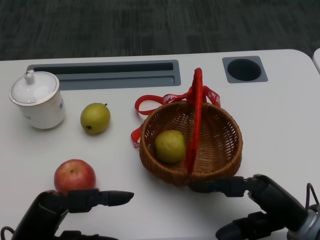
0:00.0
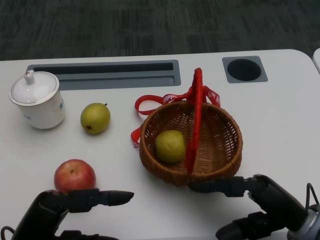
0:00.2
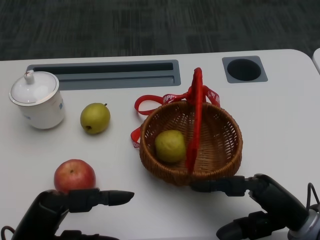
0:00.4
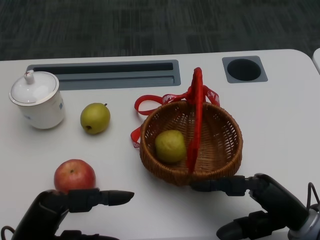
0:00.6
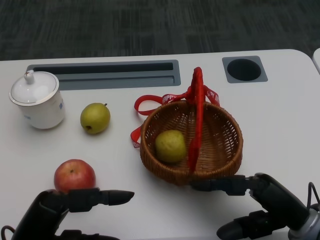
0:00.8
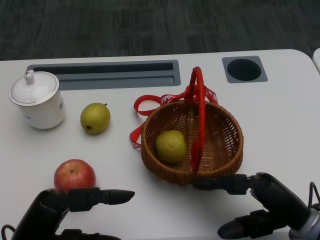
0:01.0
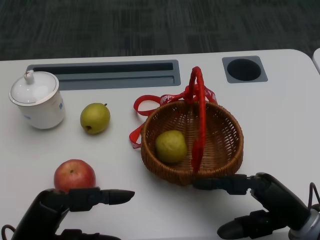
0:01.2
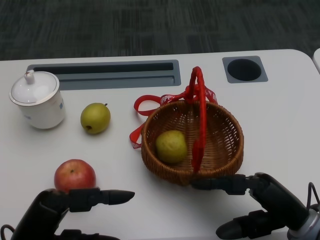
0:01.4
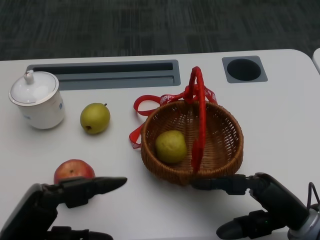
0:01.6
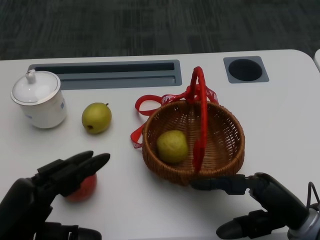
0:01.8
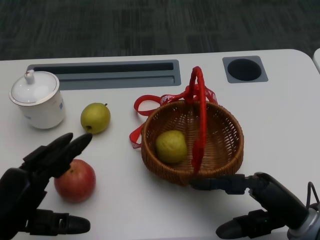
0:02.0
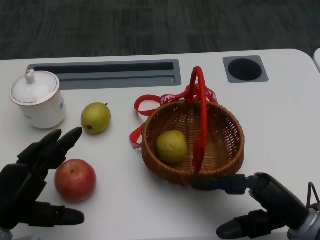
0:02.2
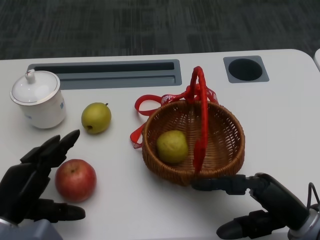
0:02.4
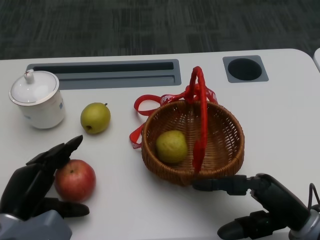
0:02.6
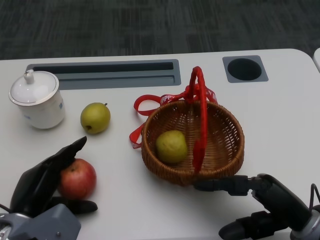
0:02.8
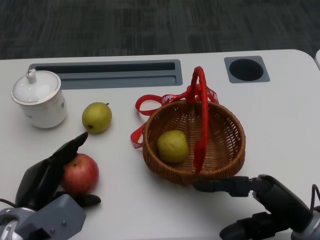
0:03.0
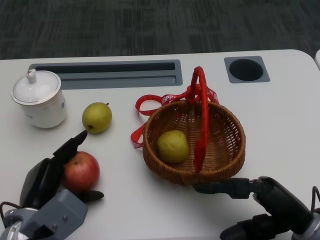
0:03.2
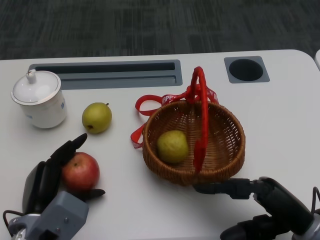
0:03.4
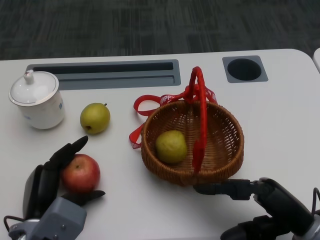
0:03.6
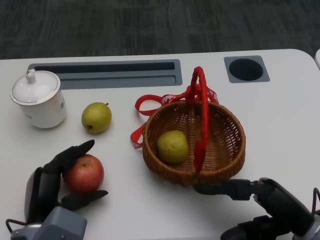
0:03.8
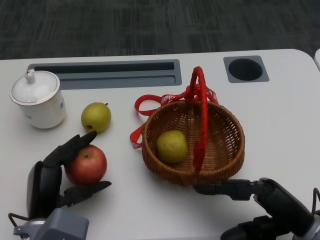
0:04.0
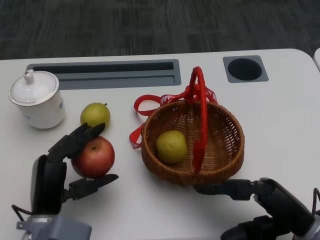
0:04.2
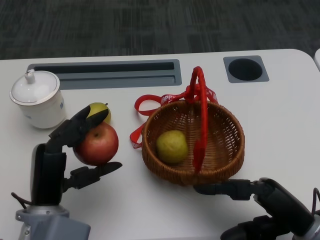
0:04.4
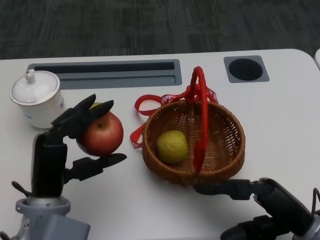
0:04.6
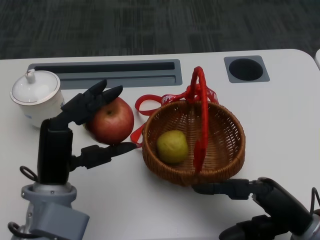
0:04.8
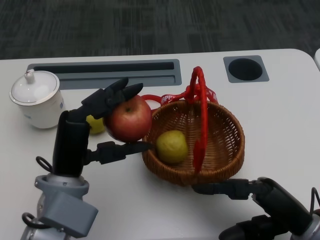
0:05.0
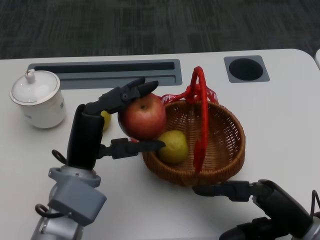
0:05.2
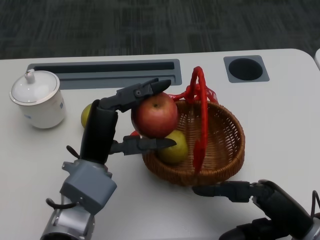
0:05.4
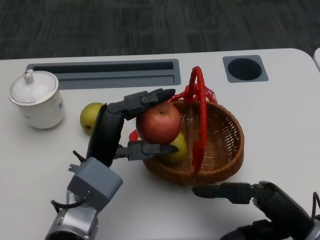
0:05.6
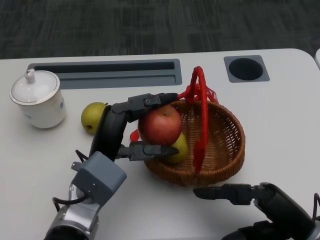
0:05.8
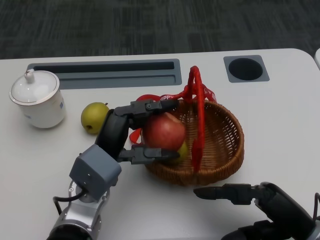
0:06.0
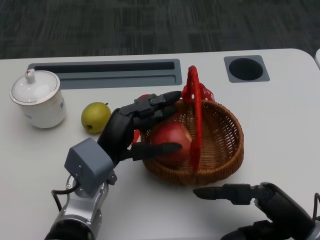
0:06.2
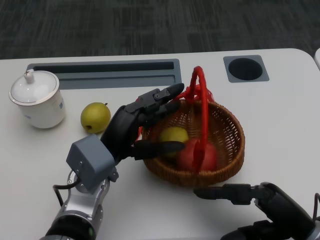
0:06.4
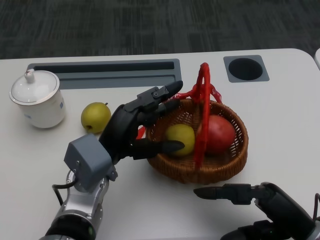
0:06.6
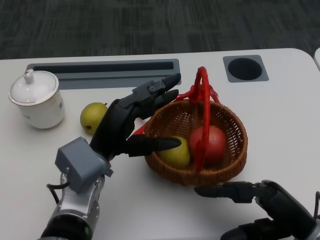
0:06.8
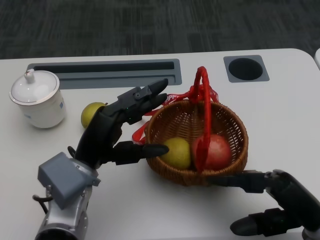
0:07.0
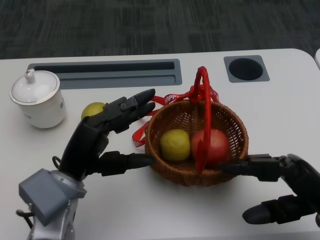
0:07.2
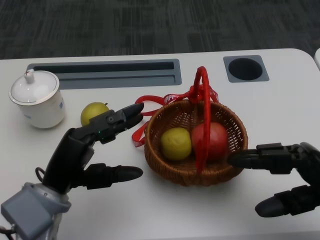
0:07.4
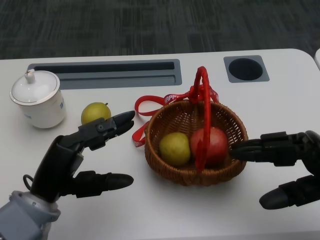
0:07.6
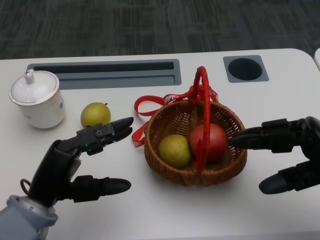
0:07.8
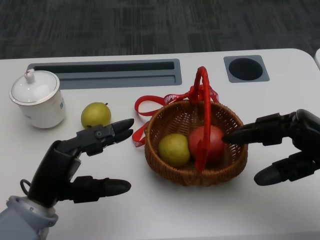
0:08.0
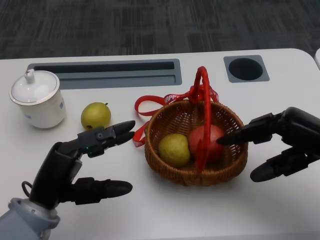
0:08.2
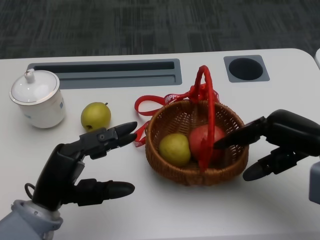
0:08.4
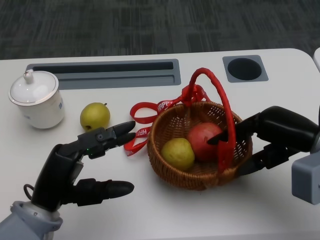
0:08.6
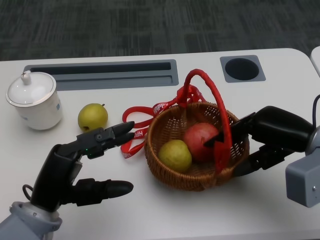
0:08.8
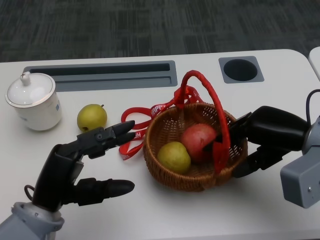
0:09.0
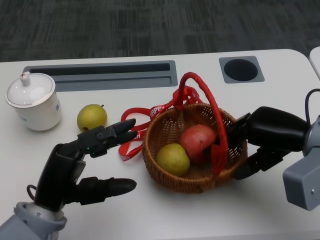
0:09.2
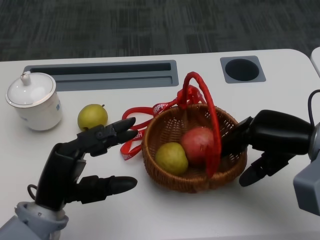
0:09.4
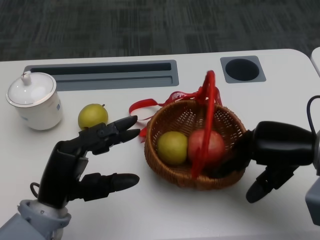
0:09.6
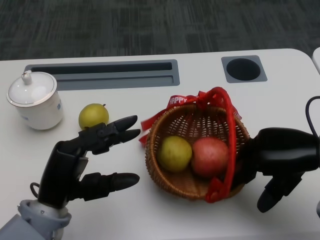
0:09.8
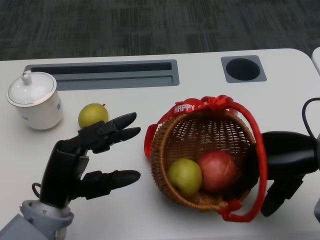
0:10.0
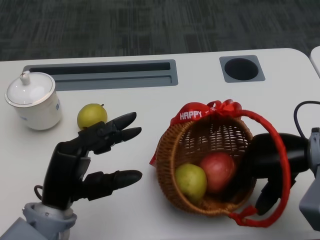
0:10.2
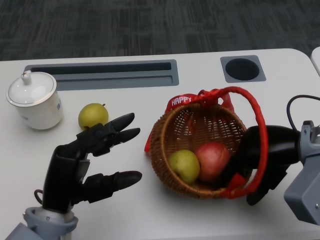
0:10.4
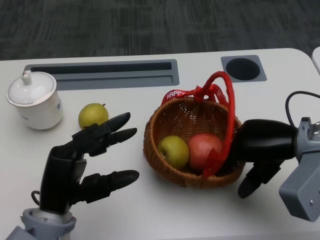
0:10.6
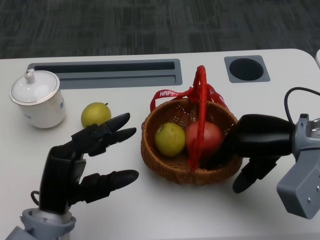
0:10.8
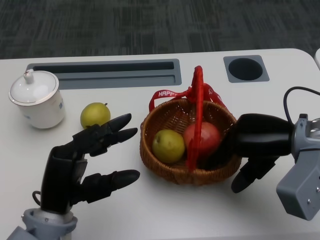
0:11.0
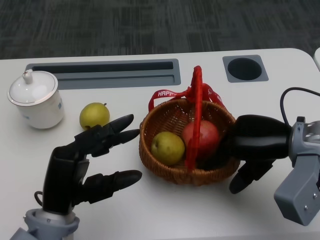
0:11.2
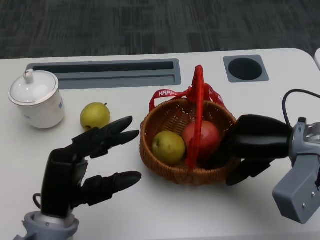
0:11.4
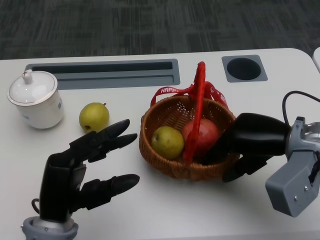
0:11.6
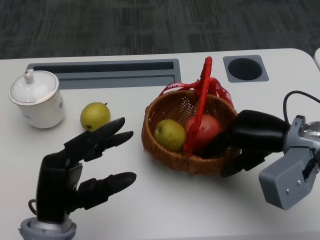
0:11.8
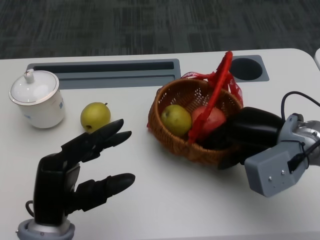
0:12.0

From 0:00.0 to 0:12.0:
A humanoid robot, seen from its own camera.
Step, from 0:00.8 to 0:03.0: Grasp the apple with the left gripper.
Step, from 0:03.2 to 0:05.2: Place the apple into the basket with the left gripper.
Step, from 0:05.4 to 0:08.0: Grasp the basket with the right gripper.
Step, from 0:08.2 to 0:11.0: Move the basket to the front of the table with the right gripper.
From 0:01.6 to 0:03.0: The left hand shifts approximately 10 cm forward and downward.
From 0:03.0 to 0:04.4: The left hand changes place by roughly 5 cm.
From 0:04.4 to 0:06.0: The left hand travels to the right by some 5 cm.
From 0:06.0 to 0:07.6: The right hand travels upward and to the right by about 10 cm. Meanwhile the left hand shifts approximately 10 cm to the left.
From 0:07.6 to 0:09.0: The right hand shifts approximately 10 cm forward.

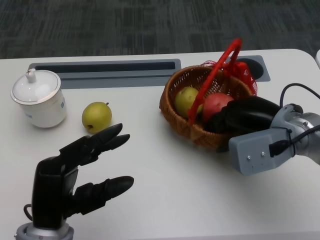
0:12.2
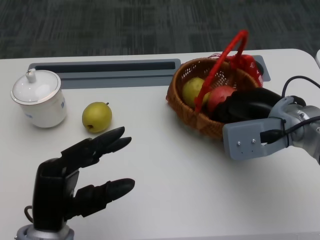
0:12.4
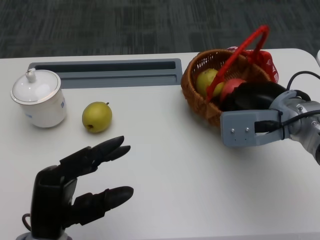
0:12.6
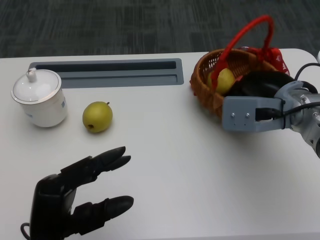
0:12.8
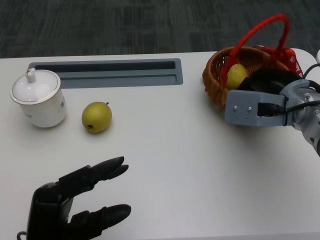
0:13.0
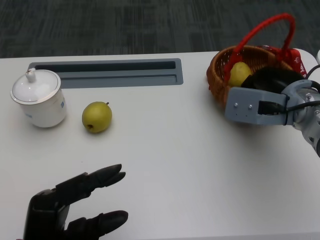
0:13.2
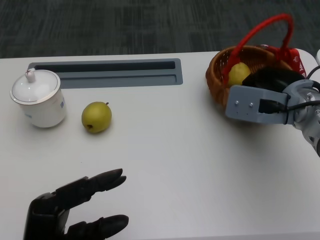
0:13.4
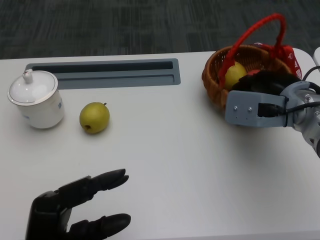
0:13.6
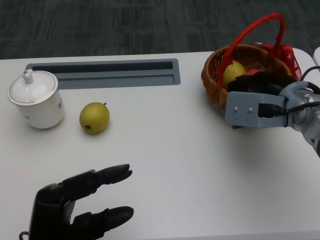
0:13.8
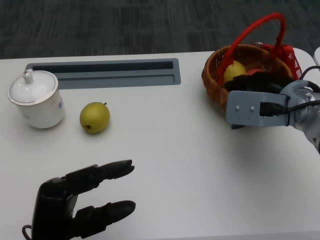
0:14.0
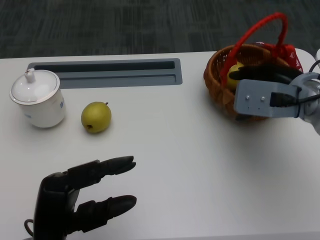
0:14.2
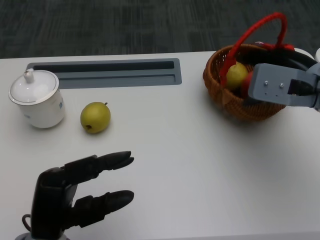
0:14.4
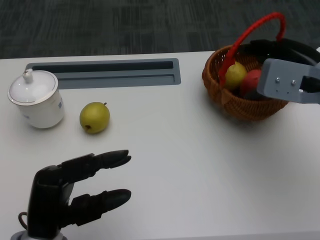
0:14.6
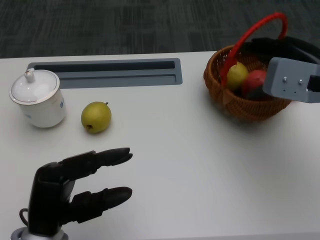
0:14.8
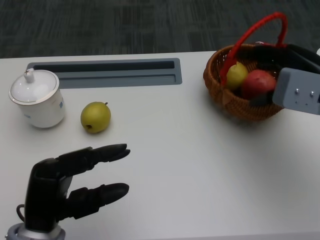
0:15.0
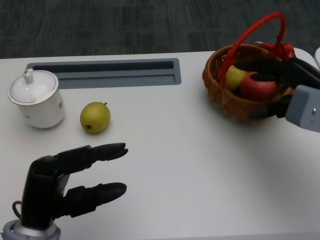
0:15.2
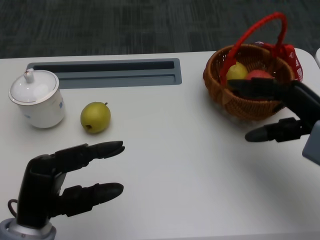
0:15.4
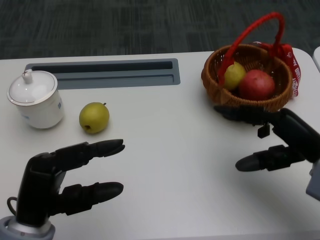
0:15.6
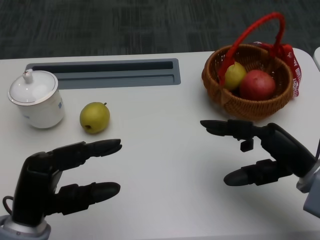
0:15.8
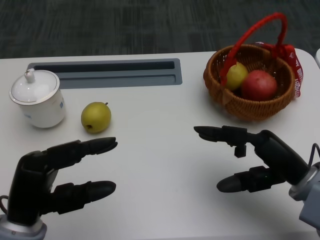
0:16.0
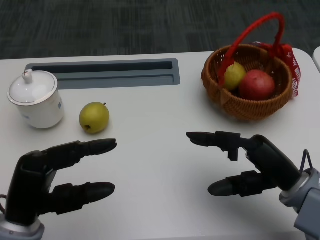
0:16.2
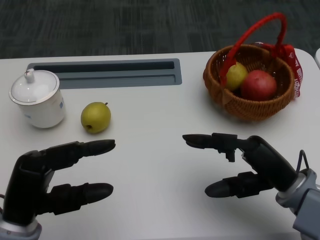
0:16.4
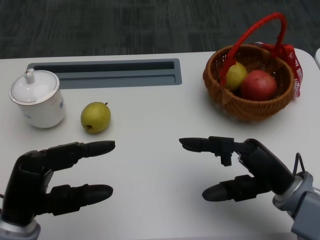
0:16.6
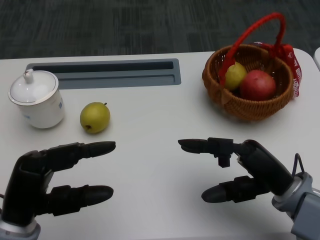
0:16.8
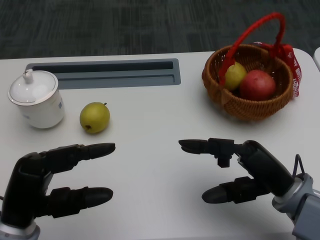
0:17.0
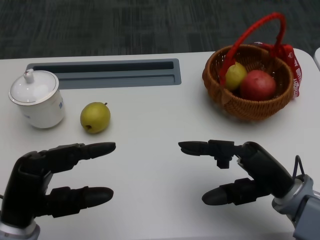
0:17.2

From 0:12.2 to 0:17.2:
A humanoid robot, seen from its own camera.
From 0:13.8 to 0:15.6: The right hand shifts about 10 cm backward and to the right.
From 0:15.6 to 0:17.2: The right hand is displaced to the left by some 5 cm.

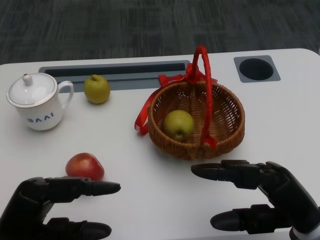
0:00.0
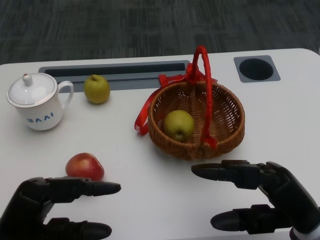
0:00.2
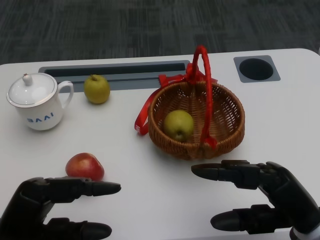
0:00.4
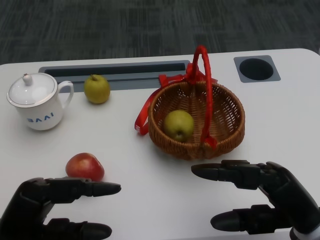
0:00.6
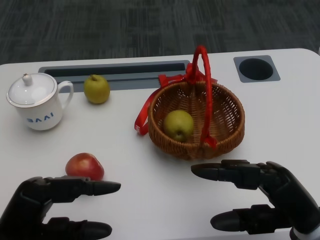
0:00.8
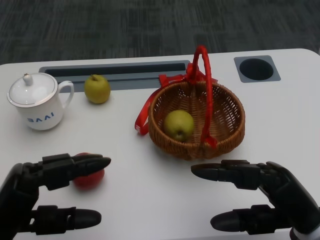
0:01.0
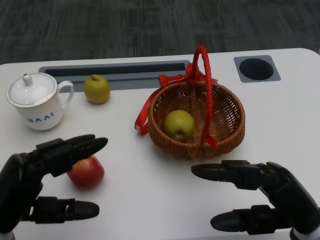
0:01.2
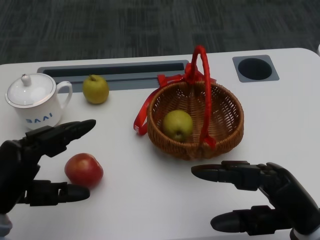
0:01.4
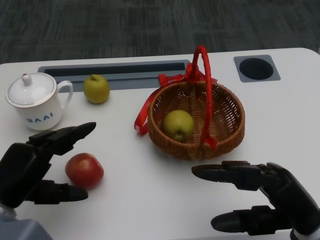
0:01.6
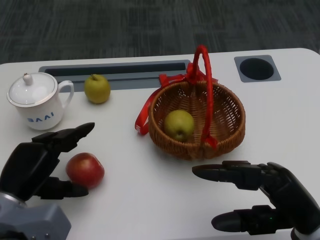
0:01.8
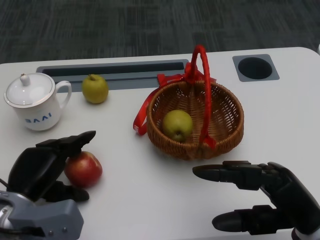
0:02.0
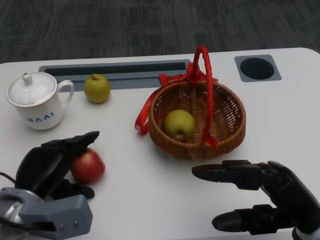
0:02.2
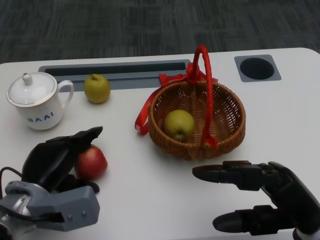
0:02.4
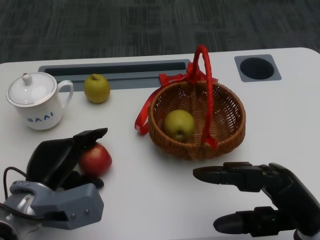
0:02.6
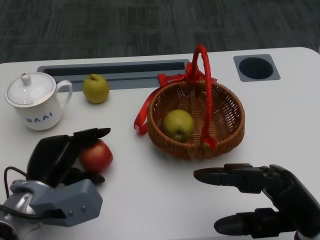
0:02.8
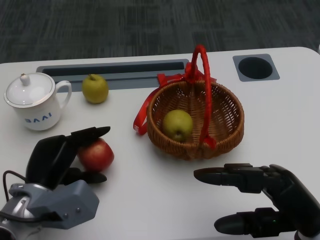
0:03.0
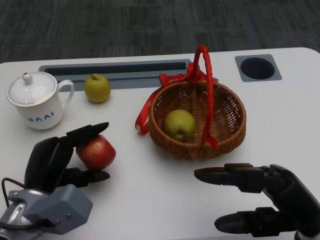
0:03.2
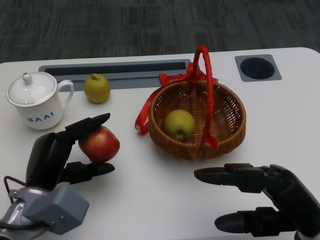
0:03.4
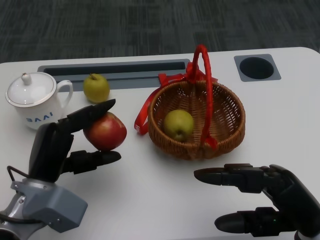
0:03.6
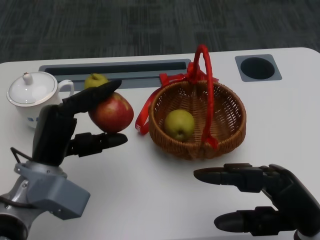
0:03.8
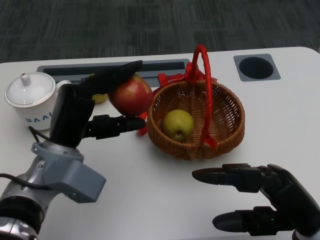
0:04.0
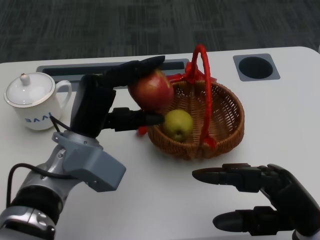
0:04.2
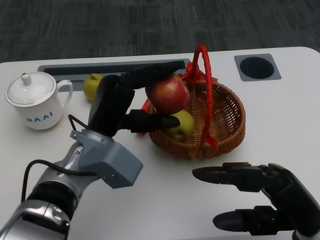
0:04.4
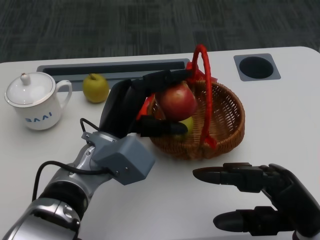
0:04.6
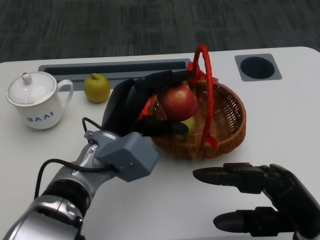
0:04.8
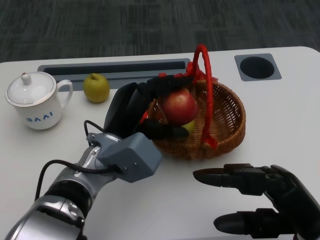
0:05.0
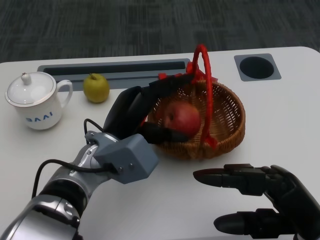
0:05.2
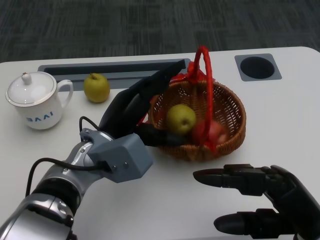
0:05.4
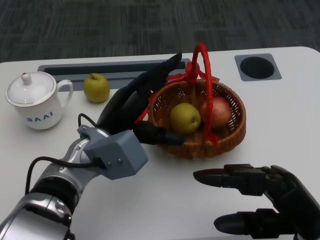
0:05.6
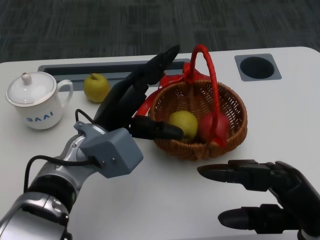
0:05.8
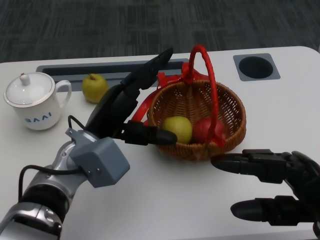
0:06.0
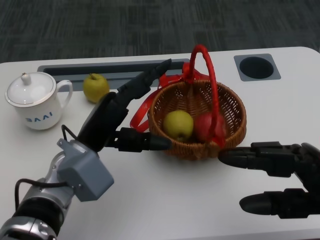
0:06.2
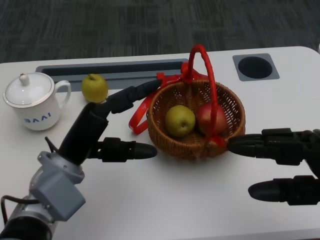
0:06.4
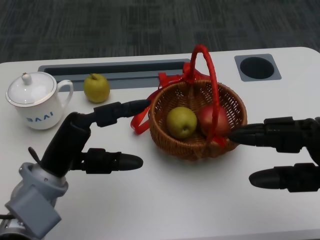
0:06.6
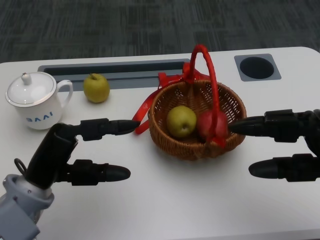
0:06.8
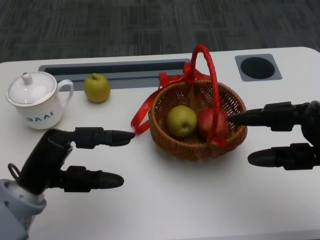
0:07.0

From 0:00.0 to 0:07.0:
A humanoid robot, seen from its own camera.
Step, from 0:00.6 to 0:02.2: Grasp the apple with the left gripper.
Step, from 0:02.4 to 0:04.4: Place the apple into the basket with the left gripper.
From 0:01.4 to 0:02.8: The left hand heads forward and downward, covering approximately 10 cm.
From 0:02.8 to 0:04.2: The left hand heads upward and to the right, covering roughly 10 cm.
From 0:05.6 to 0:07.0: The left hand travels to the left and backward by roughly 10 cm; the right hand is displaced forward and to the right by some 10 cm.
